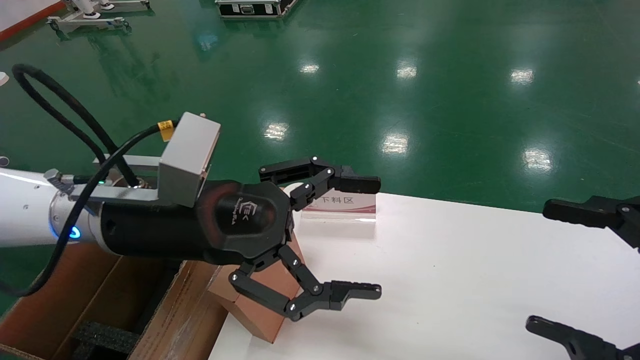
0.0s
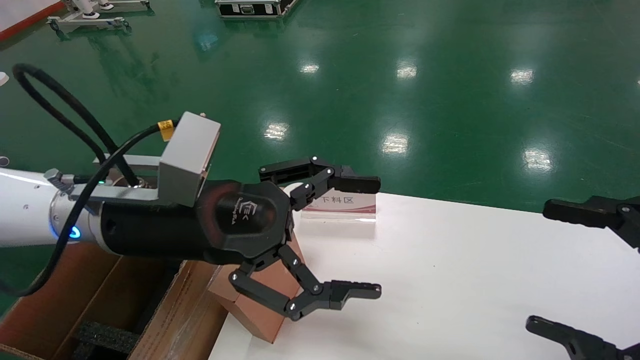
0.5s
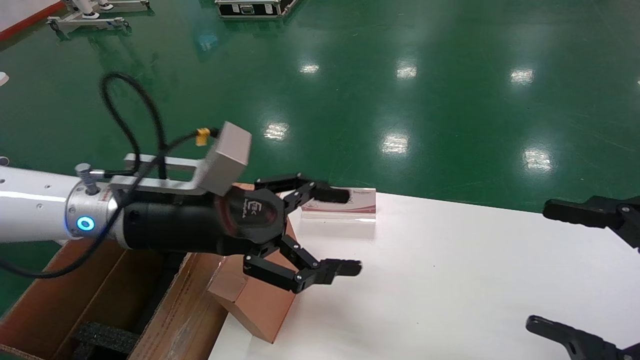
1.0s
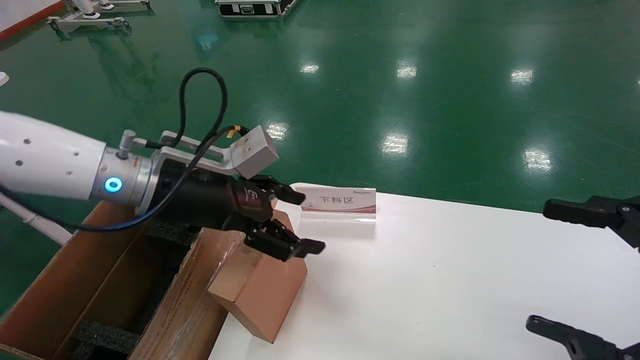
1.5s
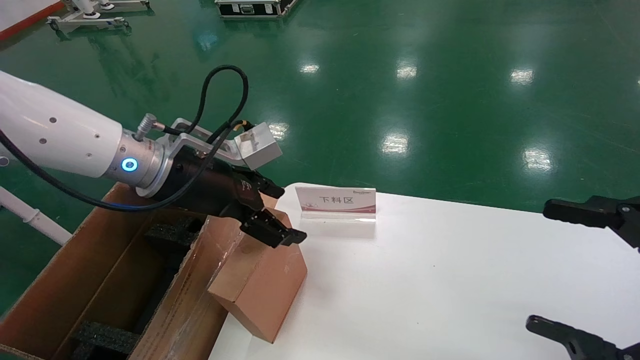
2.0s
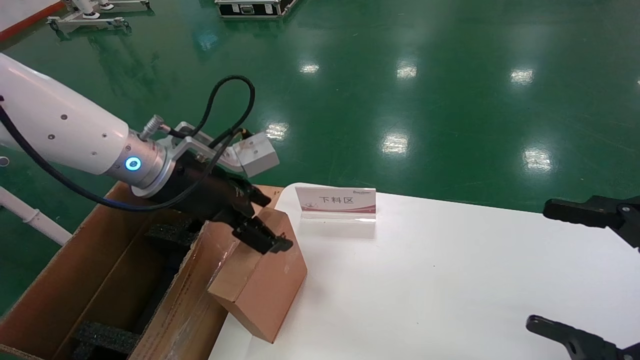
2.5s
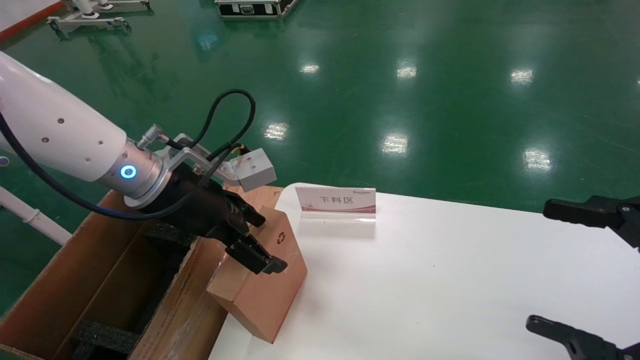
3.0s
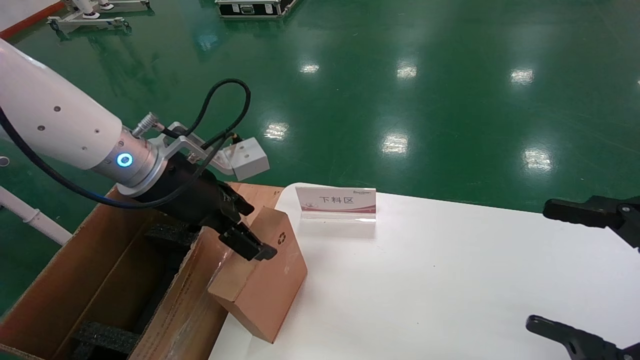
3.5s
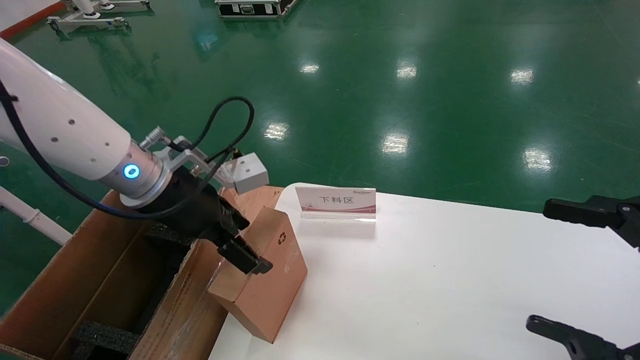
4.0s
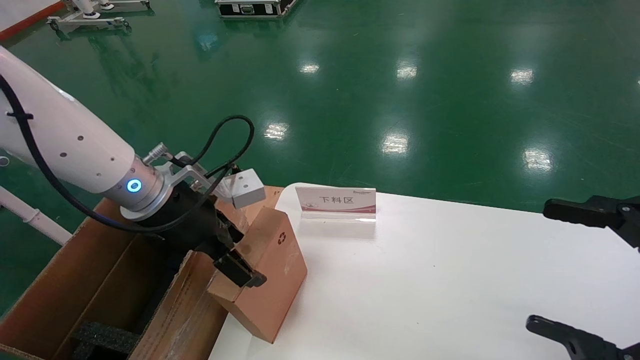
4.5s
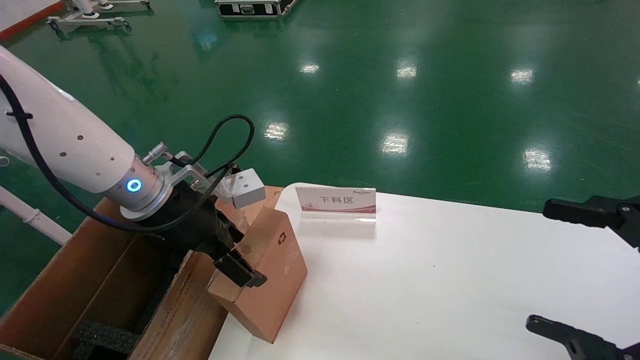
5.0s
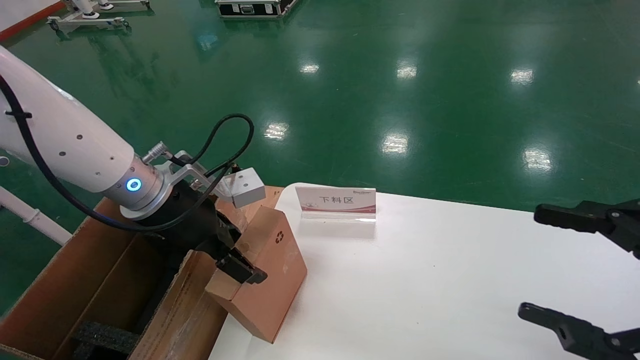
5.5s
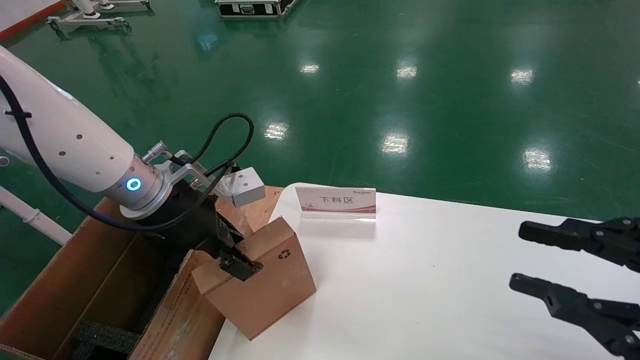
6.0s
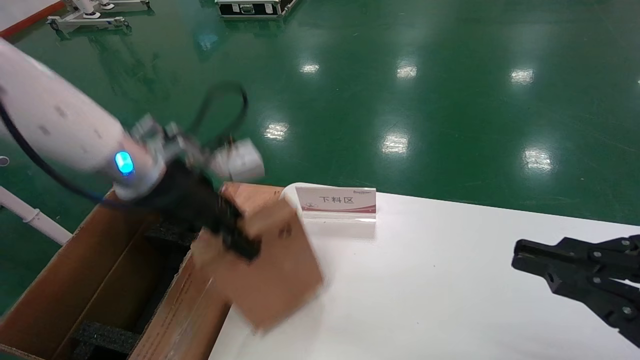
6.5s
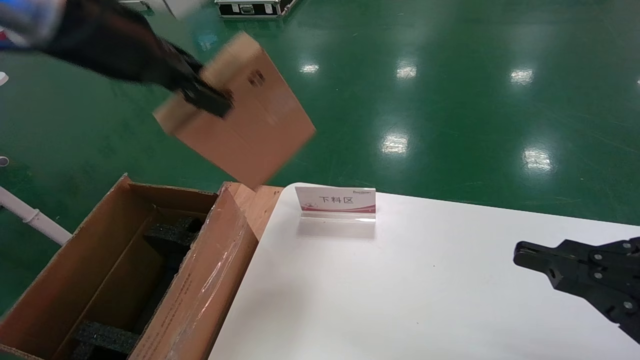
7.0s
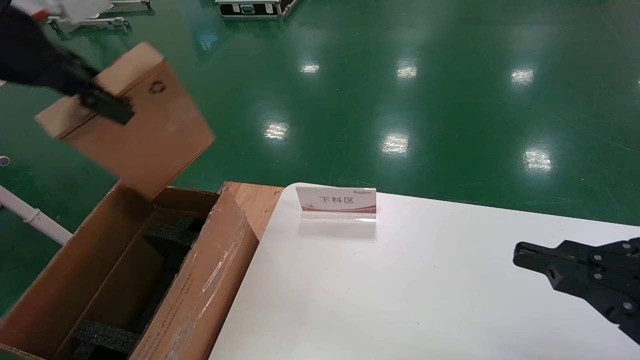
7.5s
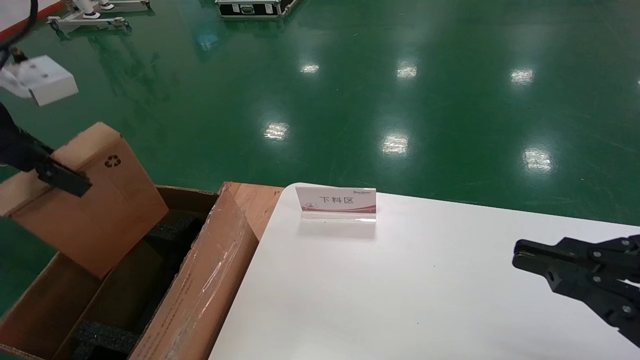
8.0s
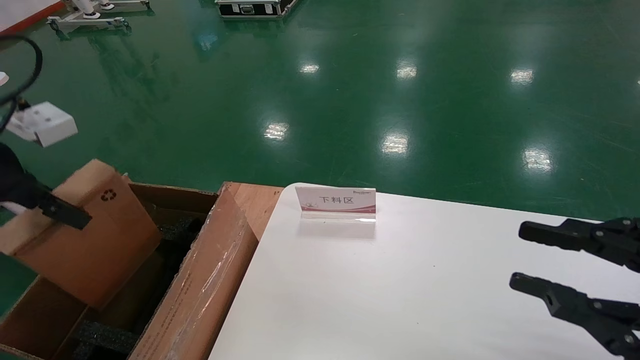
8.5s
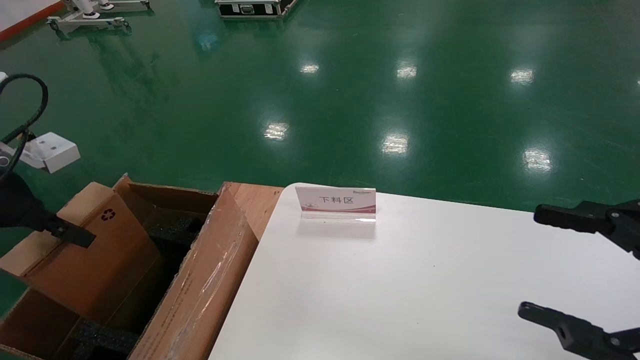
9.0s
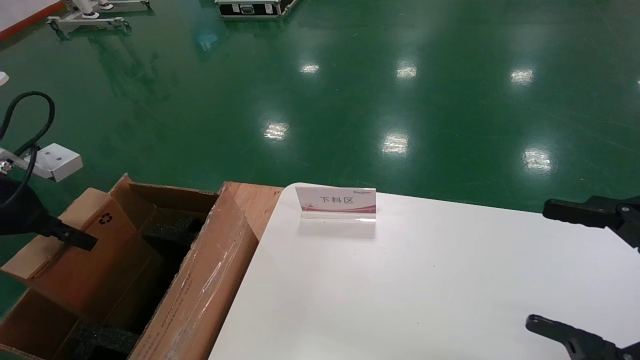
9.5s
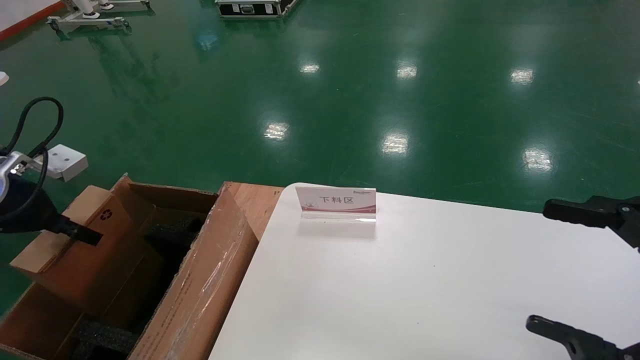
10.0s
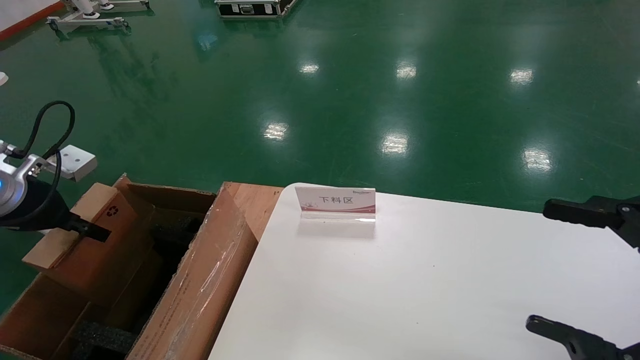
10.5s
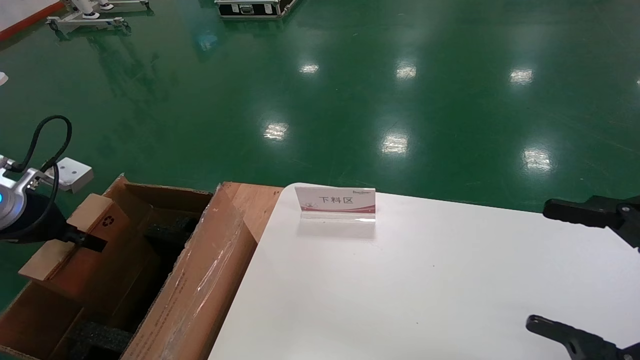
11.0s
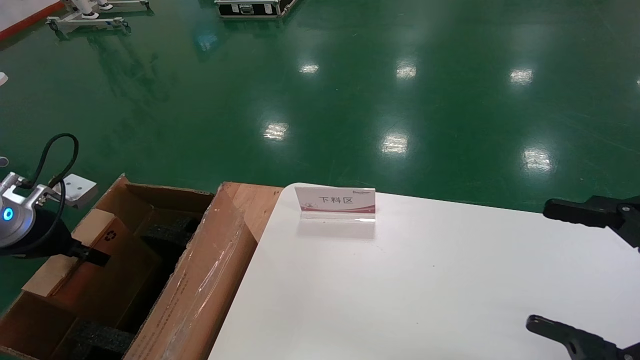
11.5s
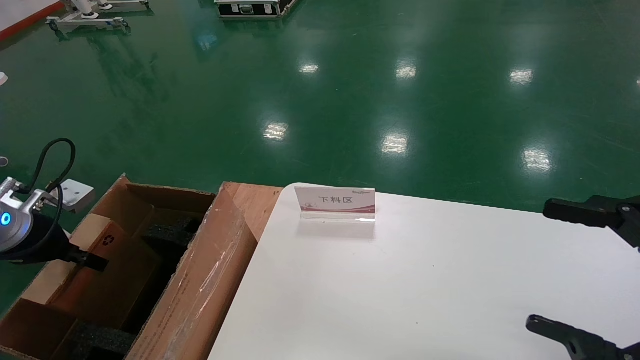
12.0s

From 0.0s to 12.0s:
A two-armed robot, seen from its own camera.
Task of the whole recording: pick up the small cardboard box and load it into the large cardboard box.
Step, from 1.0s to 6.5s: Pick up the mouse and power cord box.
From 0.0s to 2.0s: The left gripper shifts roughly 10 cm forward.
From 2.0s to 4.0s: The grippers stay close to where they were, moving slightly.
From 4.0s to 6.0s: The right gripper closes up, while the left gripper closes up.
From 6.0s to 8.0s: The left gripper heads to the left, upward and backward, covering some 20 cm, and closes up, while the right gripper closes.
From 8.0s to 10.0s: The right gripper opens up. Meanwhile the left gripper heads downward and to the left, covering approximately 15 cm.
From 10.0s to 12.0s: The left gripper is displaced downward by some 5 cm.

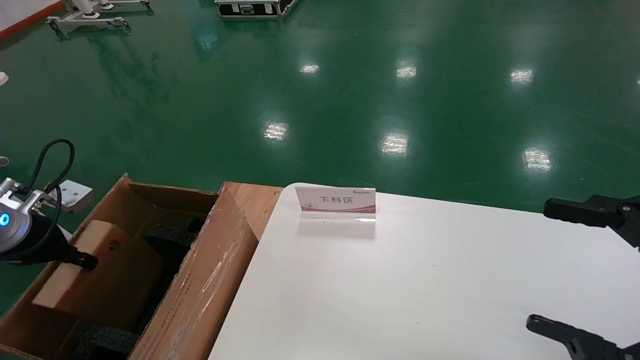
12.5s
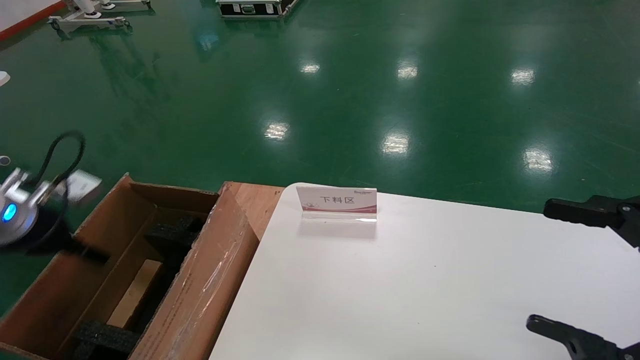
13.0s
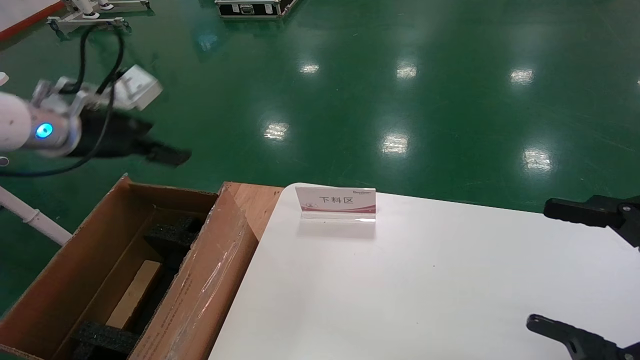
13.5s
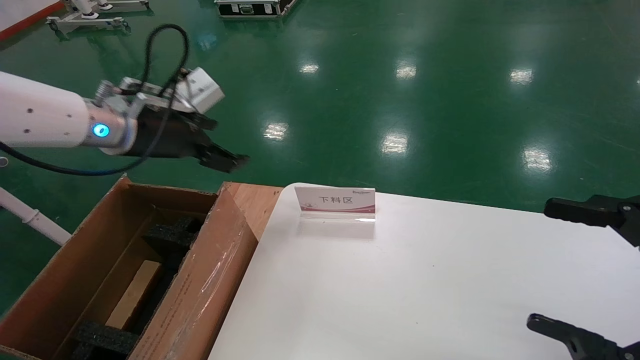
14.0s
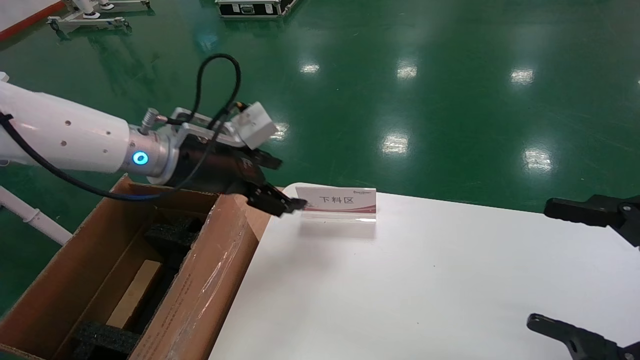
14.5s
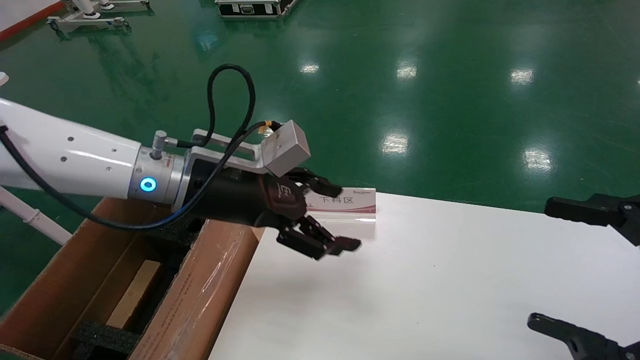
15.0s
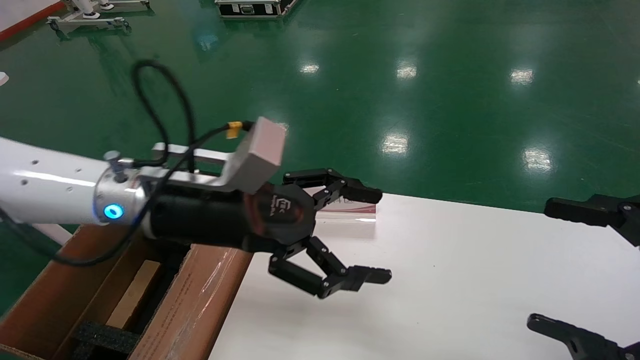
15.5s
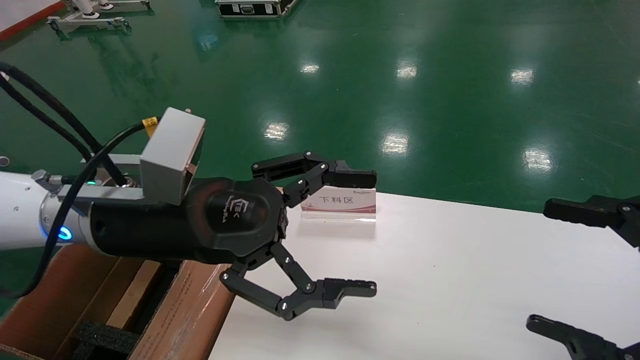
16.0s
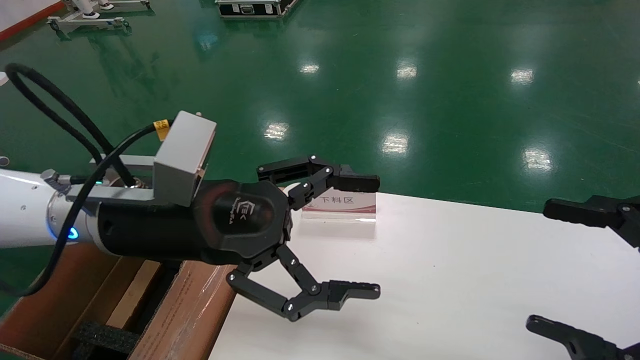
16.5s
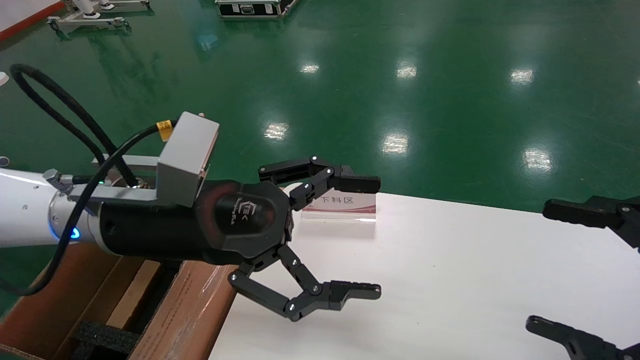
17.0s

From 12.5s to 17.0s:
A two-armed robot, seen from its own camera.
Task of the whole recording: pick up the small cardboard box and load it into the large cardboard box.
From 12.5s to 14.5s: The left gripper travels to the right and upward by approximately 25 cm, and opens up.
From 14.5s to 17.0s: The left gripper travels backward by roughly 10 cm.
